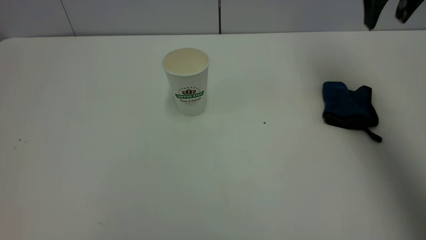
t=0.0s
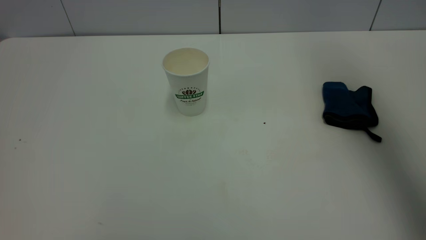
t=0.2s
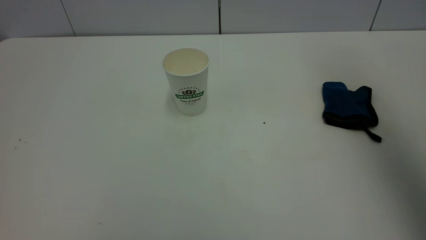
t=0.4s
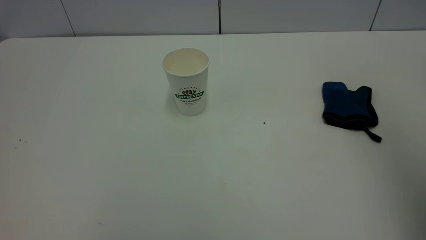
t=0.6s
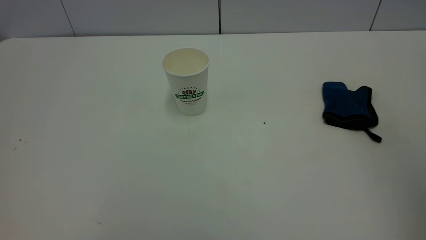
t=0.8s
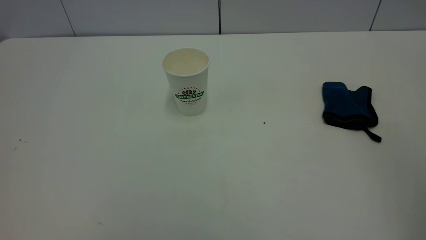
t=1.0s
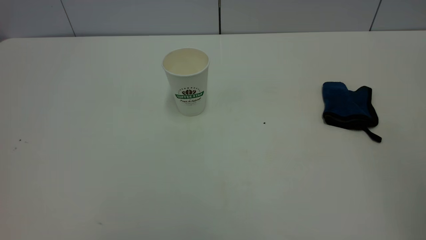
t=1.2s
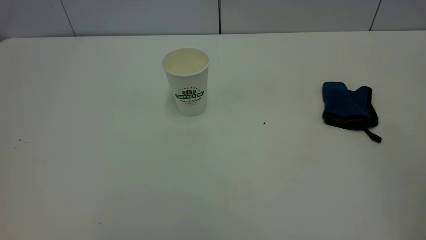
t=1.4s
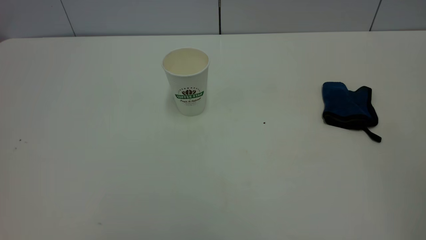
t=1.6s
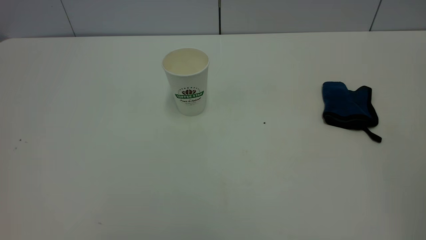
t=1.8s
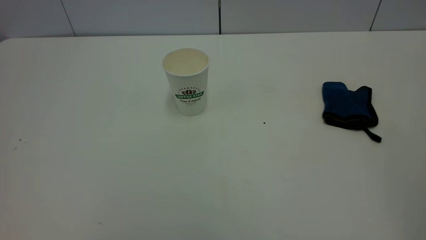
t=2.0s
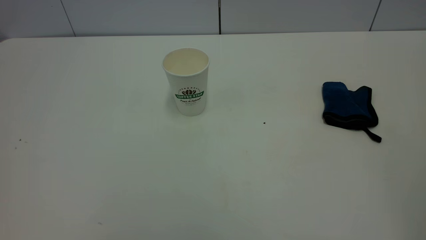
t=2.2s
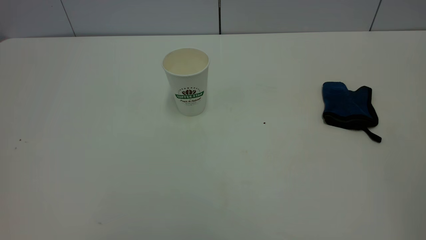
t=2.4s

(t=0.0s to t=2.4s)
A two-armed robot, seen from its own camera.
Task of the whole recording: the left gripper pick up the fallen cup and place it upright, the right gripper grasp the blue rag and wipe the tea stain on the table, the right gripper put the blue rag back in its original position.
t=0.0s - t=1.2s: The right gripper goes some 35 cm backward.
